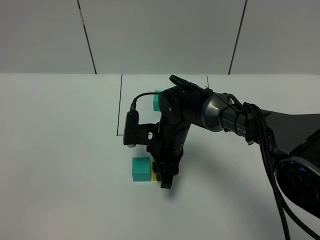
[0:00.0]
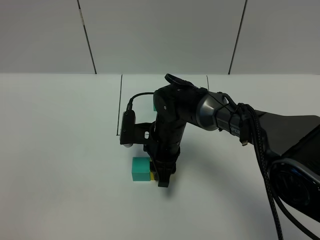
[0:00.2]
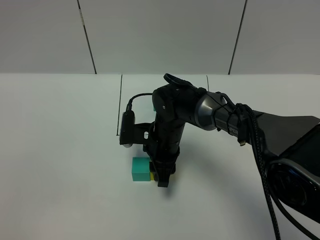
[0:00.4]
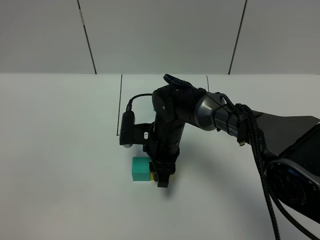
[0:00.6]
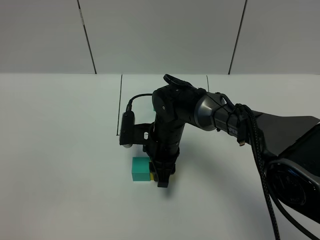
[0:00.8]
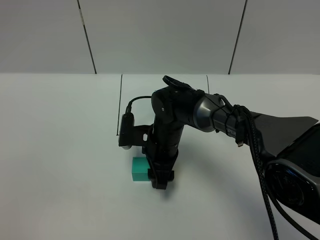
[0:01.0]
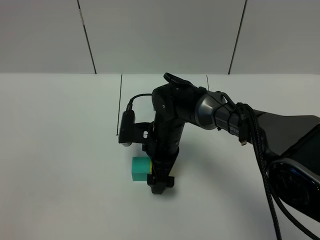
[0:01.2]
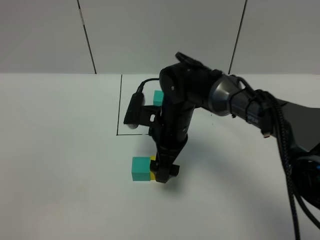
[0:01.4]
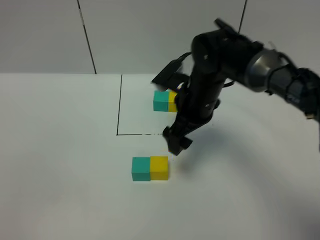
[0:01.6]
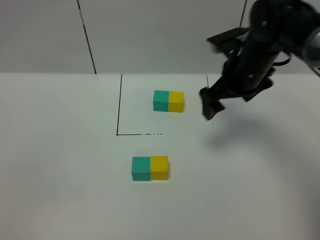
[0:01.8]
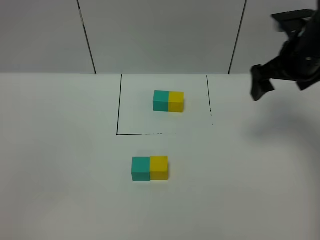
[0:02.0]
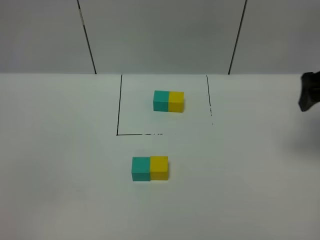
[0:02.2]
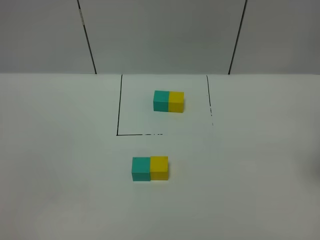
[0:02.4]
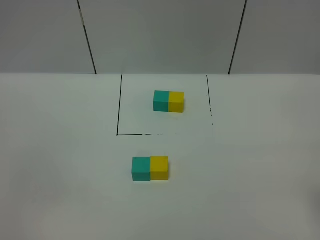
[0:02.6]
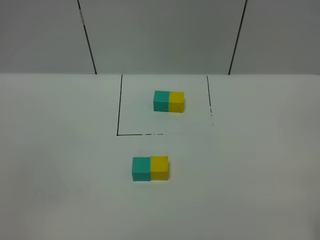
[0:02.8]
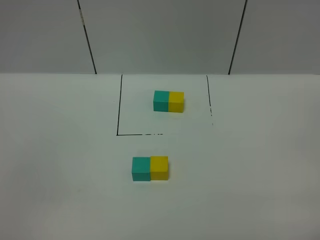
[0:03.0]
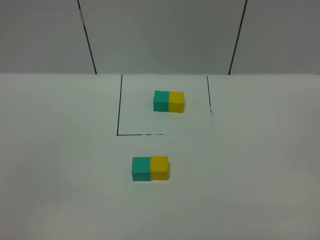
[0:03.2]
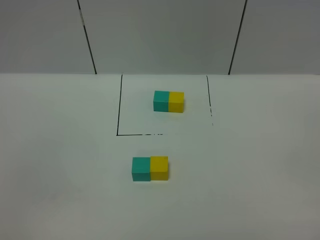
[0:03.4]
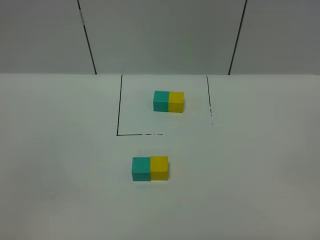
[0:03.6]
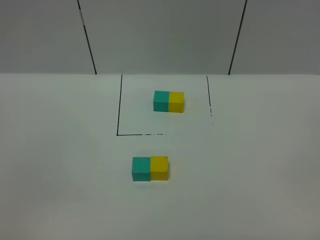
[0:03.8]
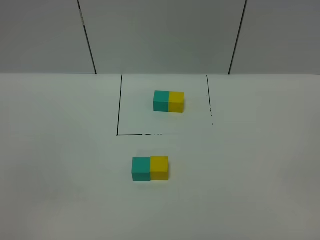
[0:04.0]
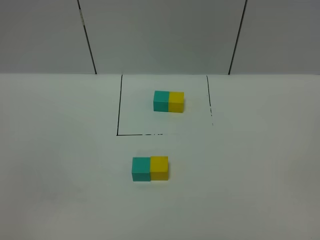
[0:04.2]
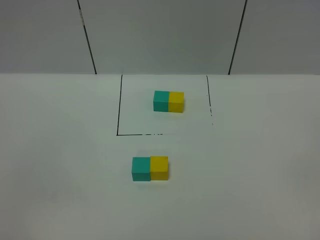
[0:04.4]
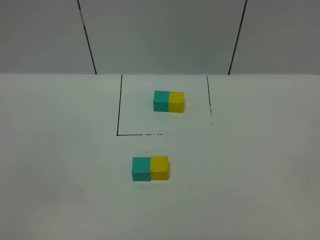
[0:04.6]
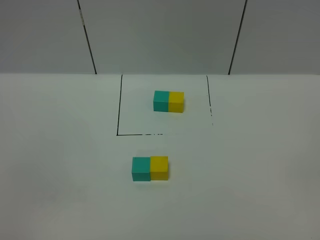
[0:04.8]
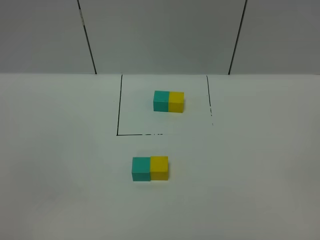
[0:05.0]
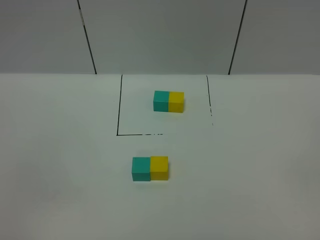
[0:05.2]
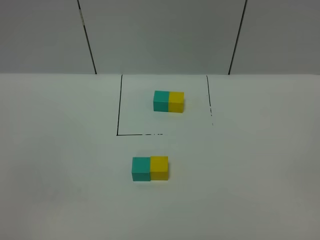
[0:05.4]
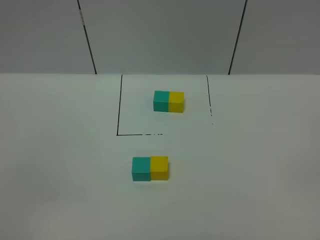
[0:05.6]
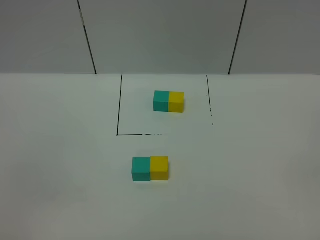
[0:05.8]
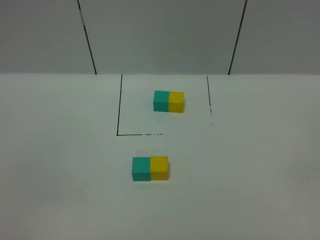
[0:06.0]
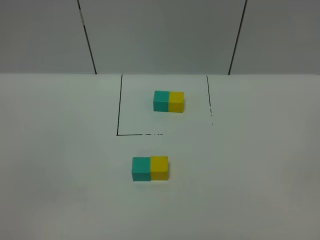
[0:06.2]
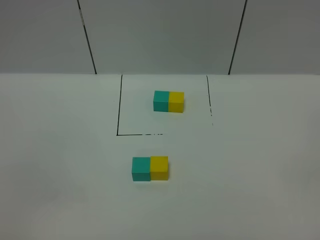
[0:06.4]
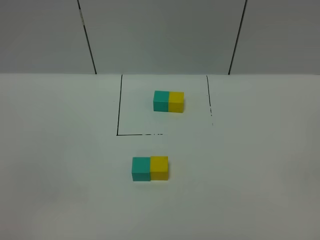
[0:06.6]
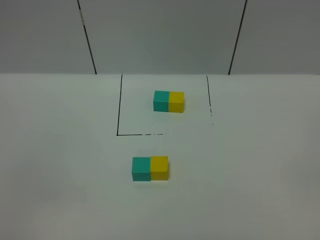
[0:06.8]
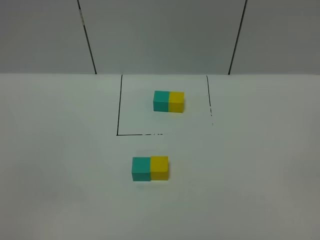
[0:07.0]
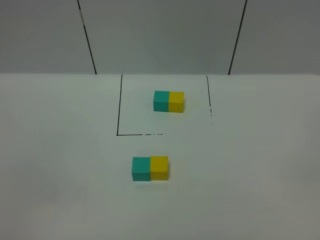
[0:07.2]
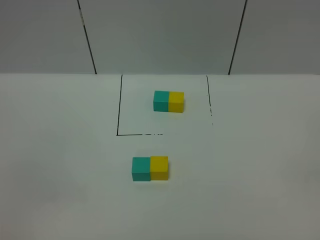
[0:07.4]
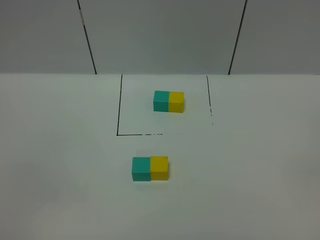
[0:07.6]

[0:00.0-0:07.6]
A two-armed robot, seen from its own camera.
Task of the whole recording: According to the building block template in front, assemble the scattered blocks together.
0:00.0 to 0:01.6: The right gripper travels upward and to the right by approximately 15 cm, and opens its fingers.
0:01.6 to 0:03.0: The right gripper heads backward and to the right, covering some 35 cm.
0:04.6 to 0:07.6: The two grippers keep their place.
